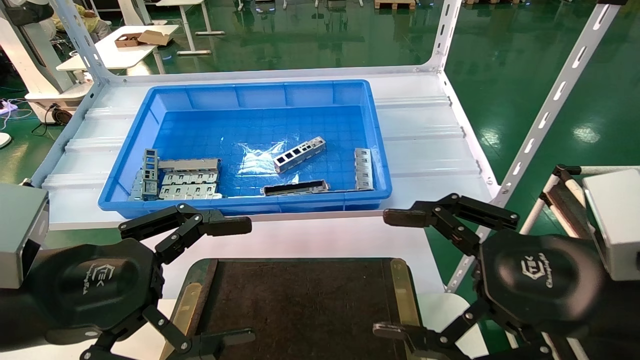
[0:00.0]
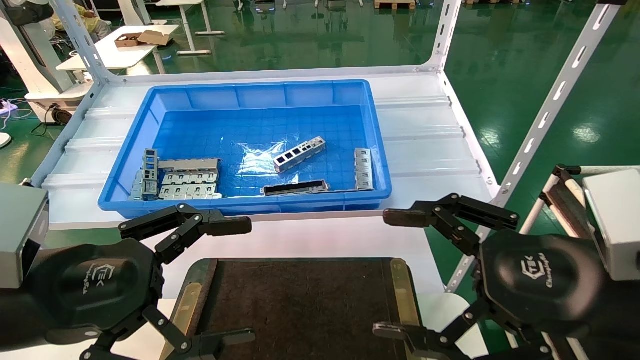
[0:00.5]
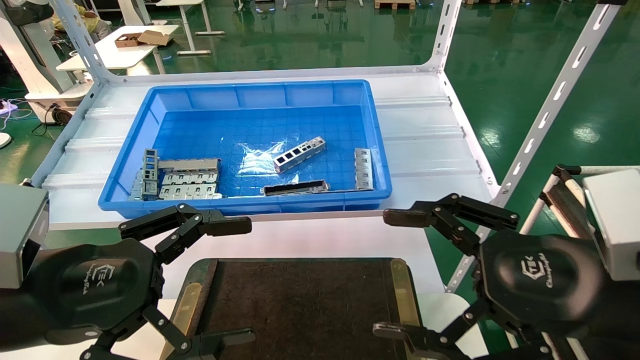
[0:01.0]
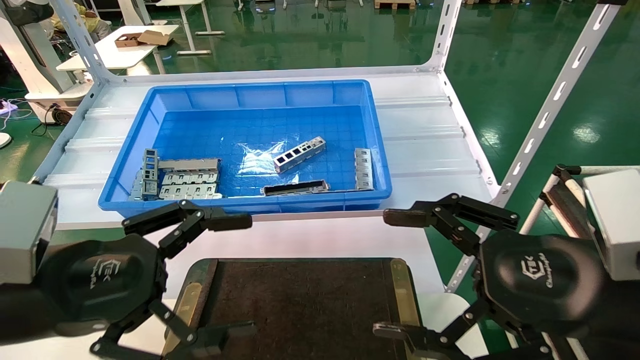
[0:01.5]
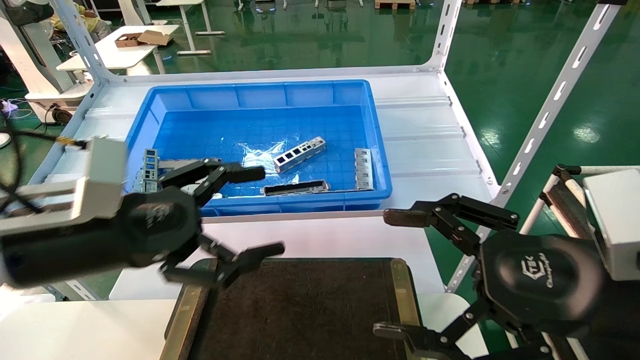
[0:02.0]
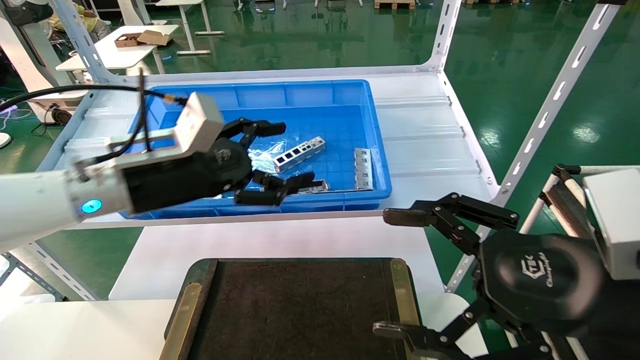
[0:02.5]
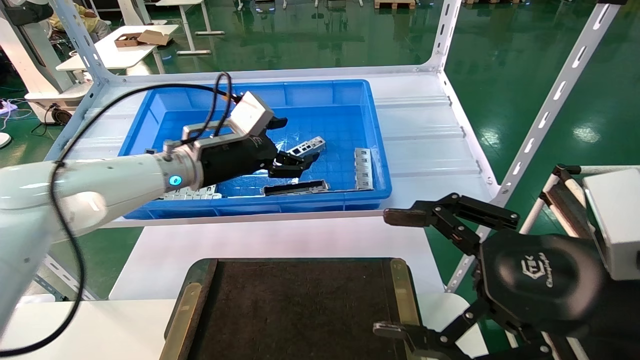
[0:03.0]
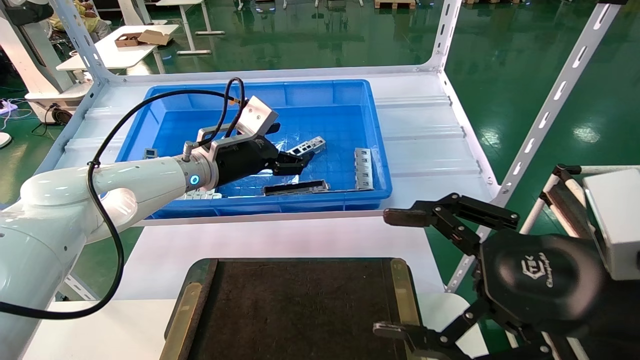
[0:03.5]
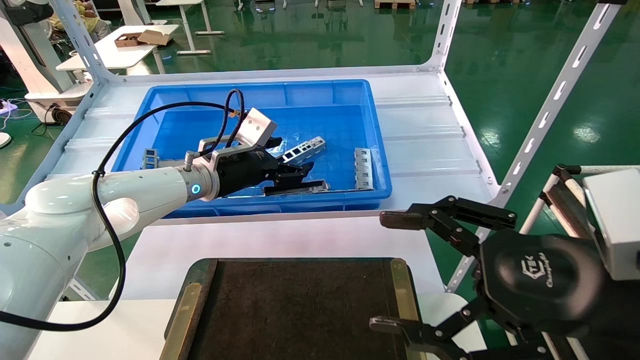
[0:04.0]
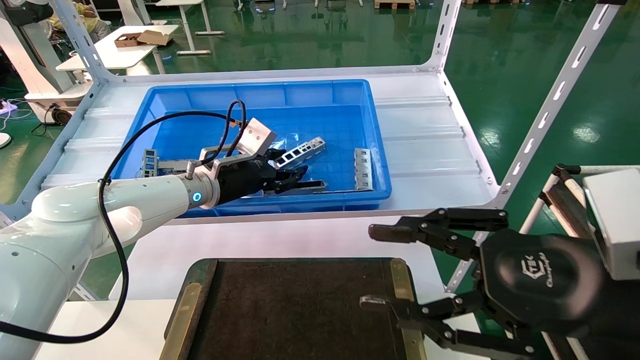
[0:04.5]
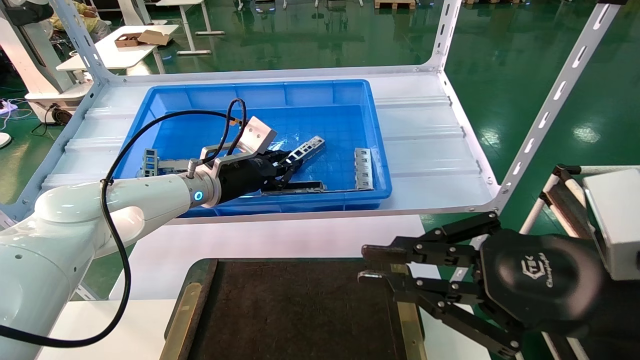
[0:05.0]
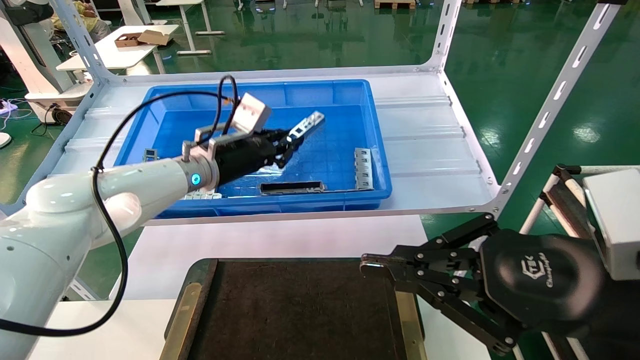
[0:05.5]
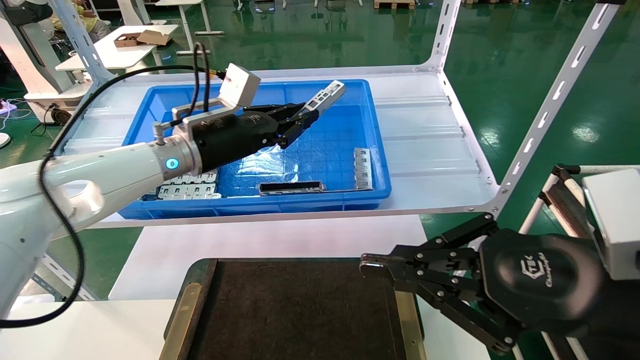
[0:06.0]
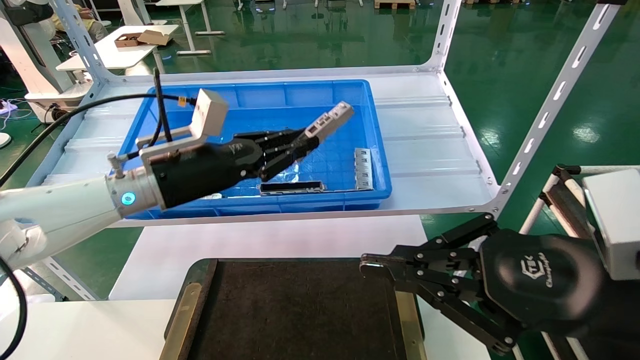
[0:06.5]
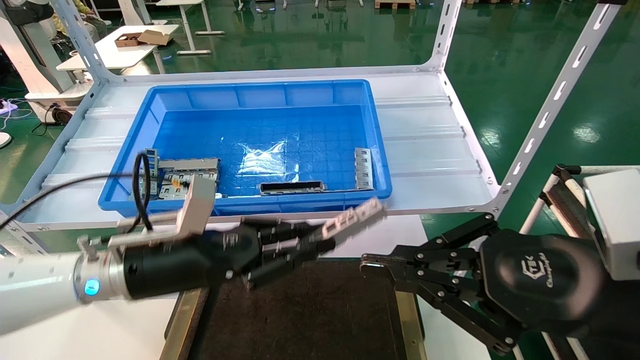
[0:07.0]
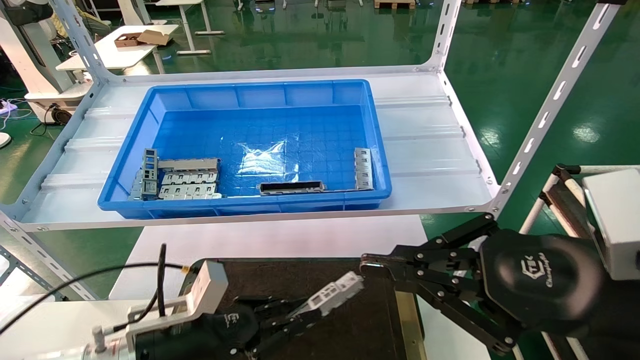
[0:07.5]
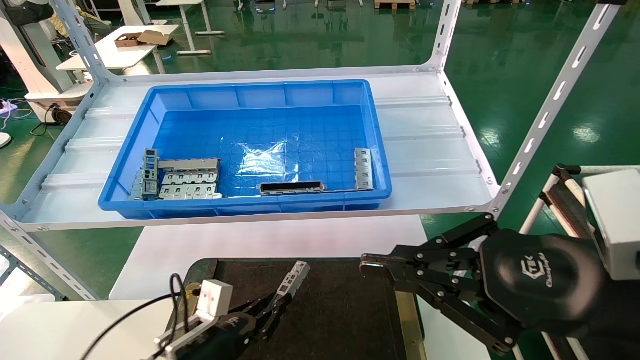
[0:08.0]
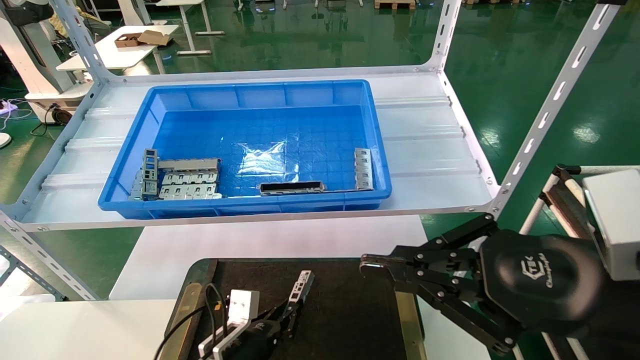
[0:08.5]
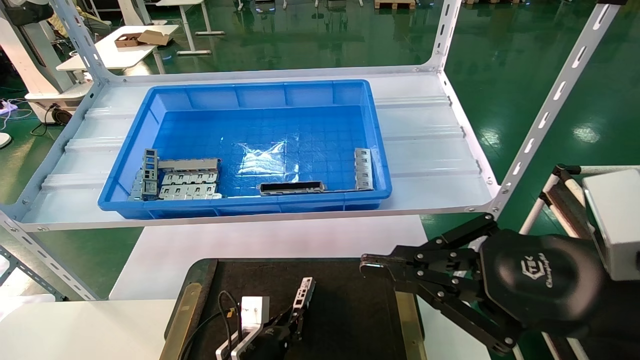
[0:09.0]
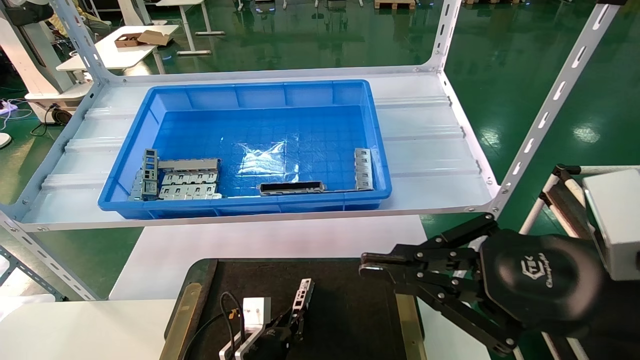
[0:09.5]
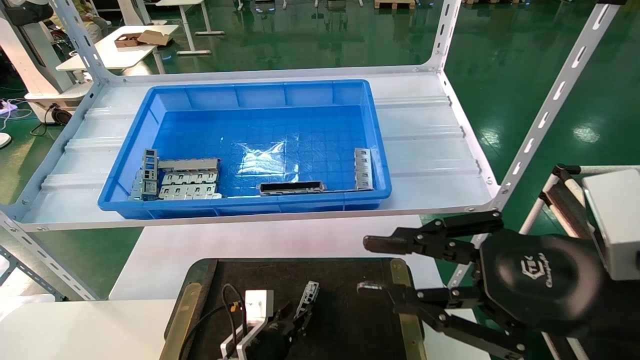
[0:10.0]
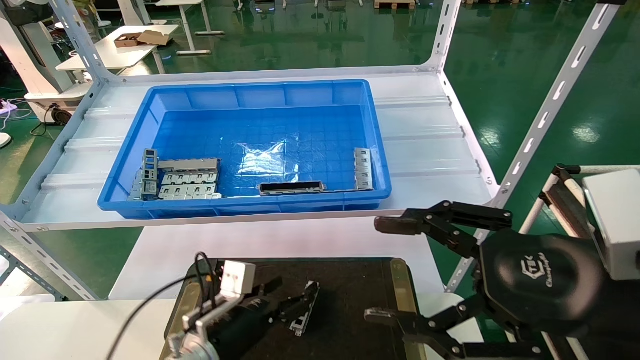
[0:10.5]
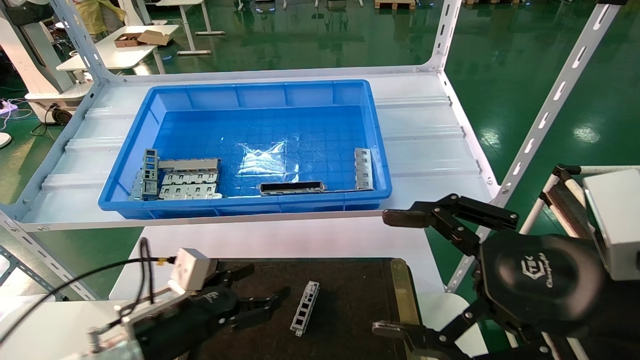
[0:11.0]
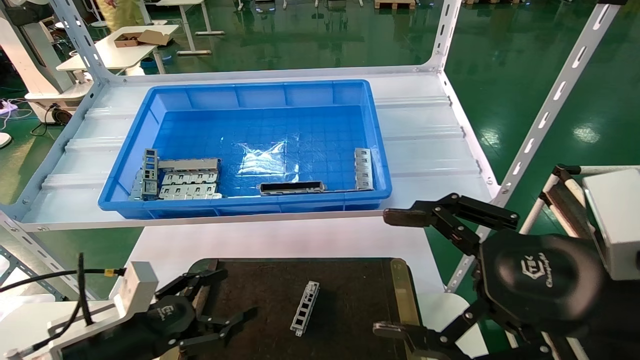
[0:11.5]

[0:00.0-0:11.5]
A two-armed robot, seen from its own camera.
Task of the whole recording: Grasp the part with one hand and place it on the black container.
Step, 0:02.0 to 0:05.5: Pick up the front USB bracket from the feeding area.
Step, 0:06.0 to 0:09.5: Place the front USB bracket into the box.
0:00.0 to 0:02.0: The left gripper is displaced forward by roughly 5 cm.
0:02.0 to 0:04.0: The left gripper moves forward, some 25 cm.
0:04.0 to 0:06.0: The left gripper shifts by roughly 5 cm, and closes. The right gripper closes up.
0:06.0 to 0:07.5: The left gripper travels downward and backward by approximately 25 cm.
0:07.5 to 0:09.5: The left gripper moves downward, to the right and forward, roughly 20 cm.
0:09.5 to 0:11.5: The left gripper travels to the left, upward and backward by some 25 cm, and opens, while the right gripper opens.
